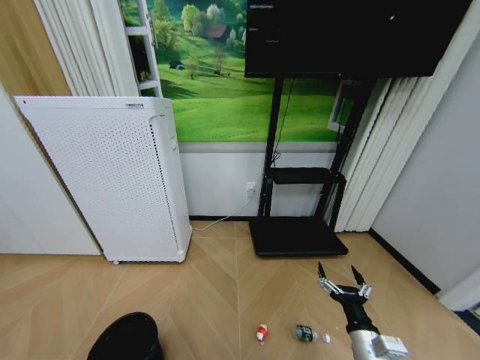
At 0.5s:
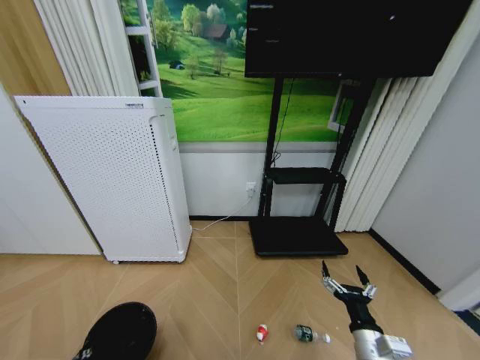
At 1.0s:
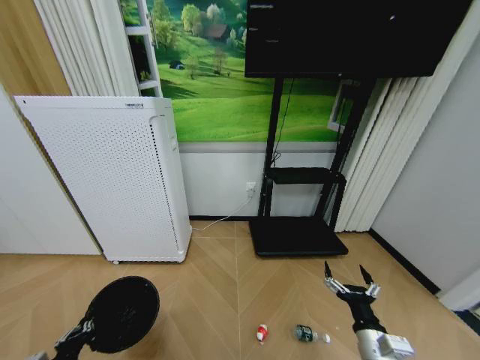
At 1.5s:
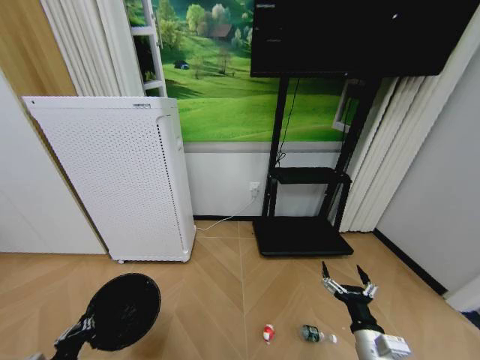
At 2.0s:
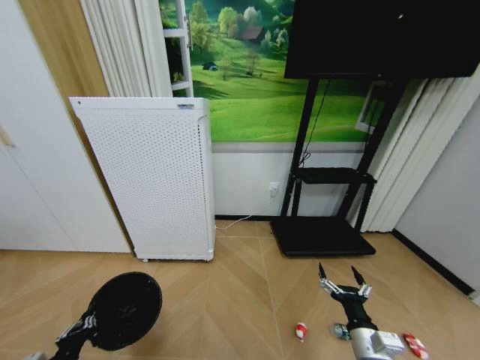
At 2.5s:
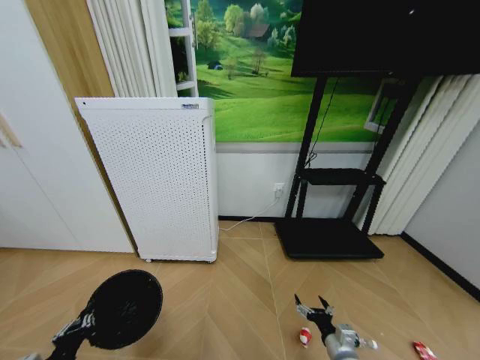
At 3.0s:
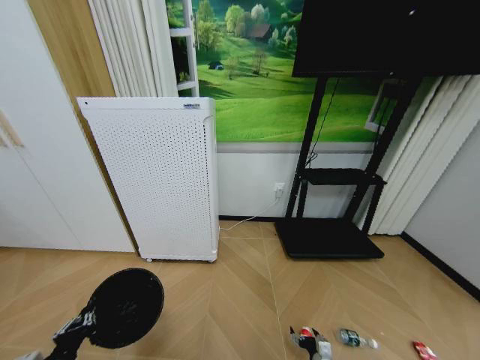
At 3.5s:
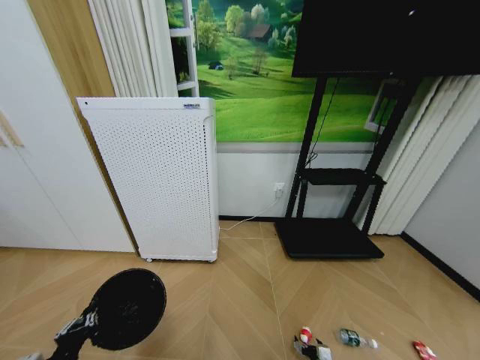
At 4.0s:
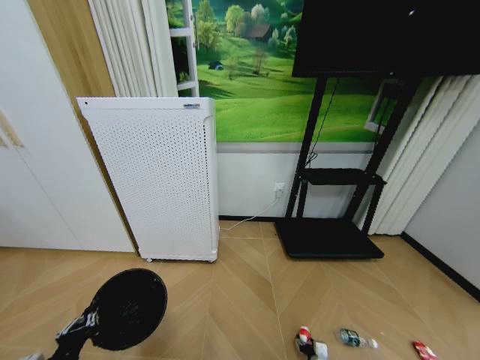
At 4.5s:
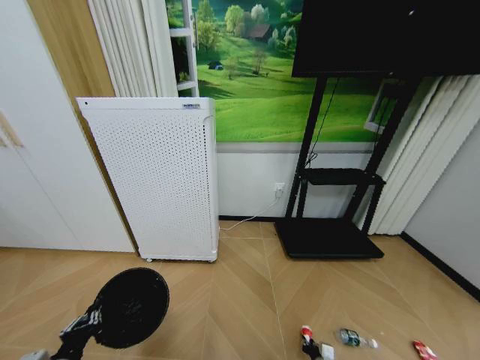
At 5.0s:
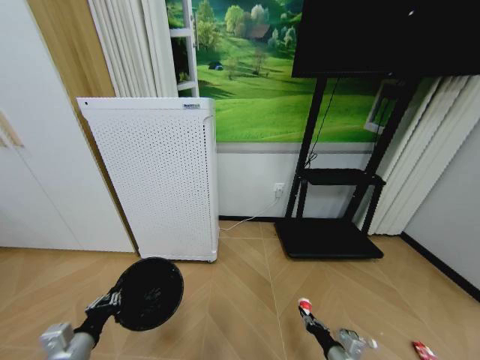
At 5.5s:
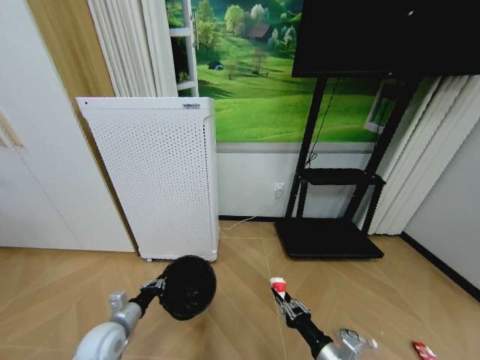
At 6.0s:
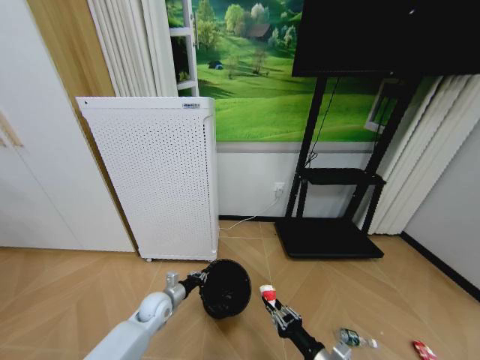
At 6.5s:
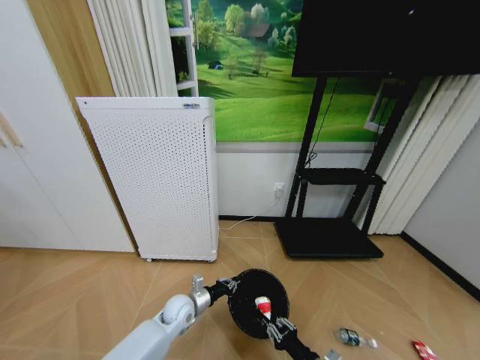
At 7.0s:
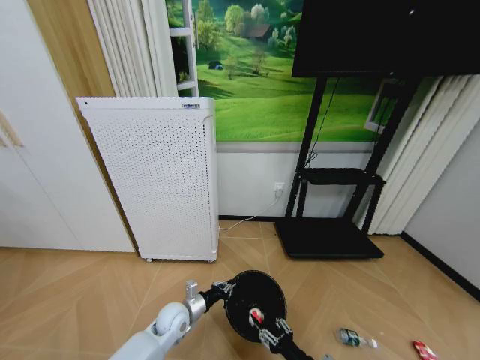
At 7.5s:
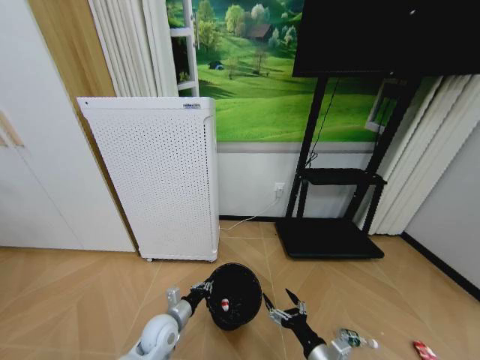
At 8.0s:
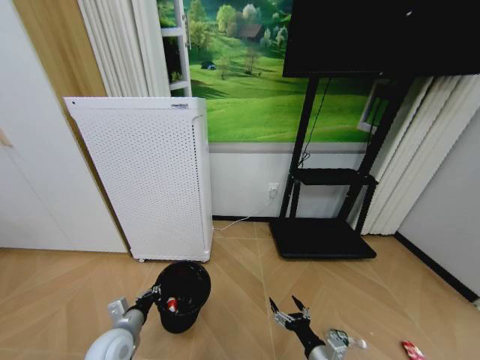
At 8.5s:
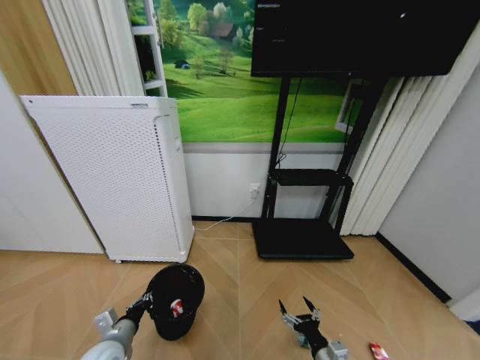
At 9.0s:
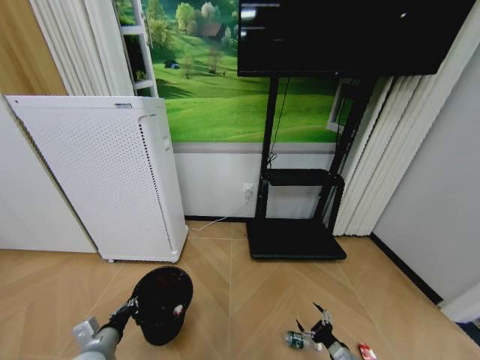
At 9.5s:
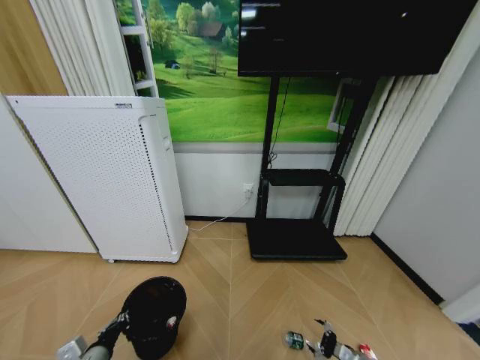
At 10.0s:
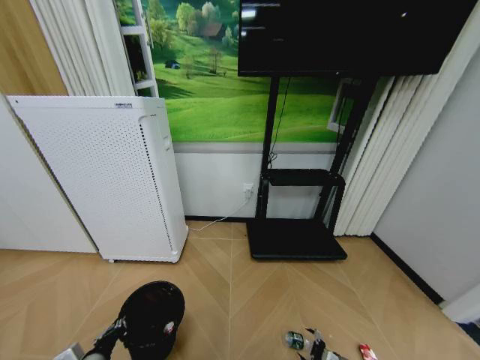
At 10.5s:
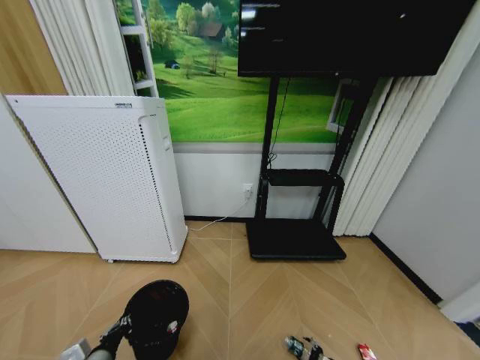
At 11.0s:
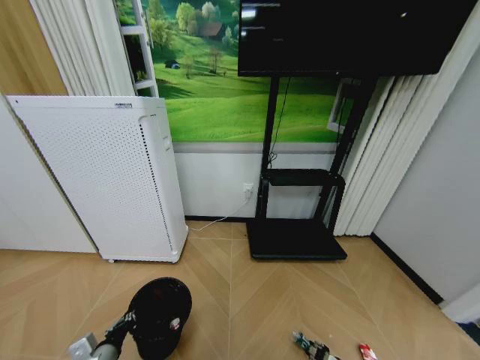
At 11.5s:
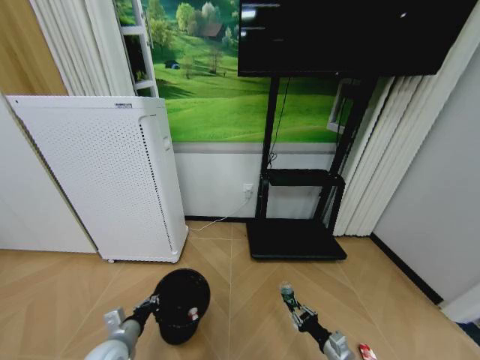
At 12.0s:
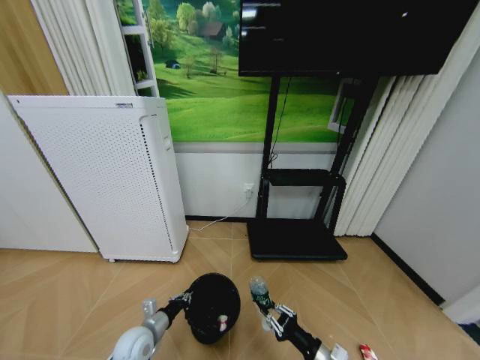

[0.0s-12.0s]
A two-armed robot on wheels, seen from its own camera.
Task of the whole recording: Pick up the trash bin and place the garbage on the floor into it.
0.0s to 2.0s: The left gripper heads upward, covering about 10 cm.
2.0s to 4.0s: The right gripper goes roughly 30 cm downward, and closes up.
4.0s to 6.0s: The right gripper goes about 25 cm upward, and closes up; the left gripper shifts about 30 cm forward, downward and to the right.
6.0s to 8.0s: The right gripper opens; the left gripper moves backward and upward, about 10 cm, and travels to the right and back again, about 10 cm each way.
8.0s to 10.0s: The left gripper is displaced backward by about 10 cm, while the right gripper travels downward and to the right by roughly 25 cm.
10.0s to 12.0s: The left gripper moves forward, to the right and downward, roughly 15 cm; the right gripper goes some 25 cm upward and to the left, and closes up.

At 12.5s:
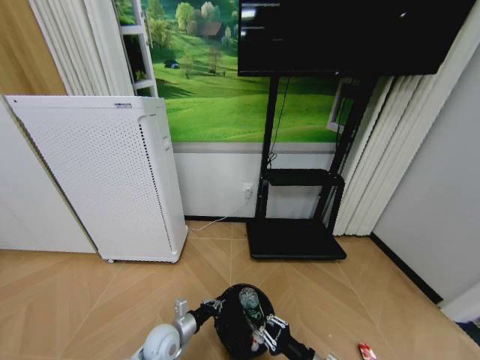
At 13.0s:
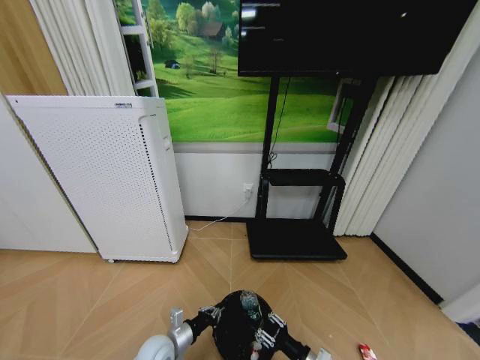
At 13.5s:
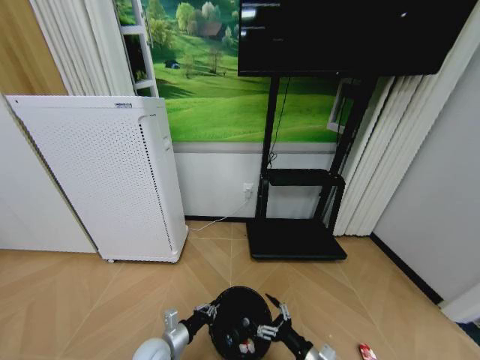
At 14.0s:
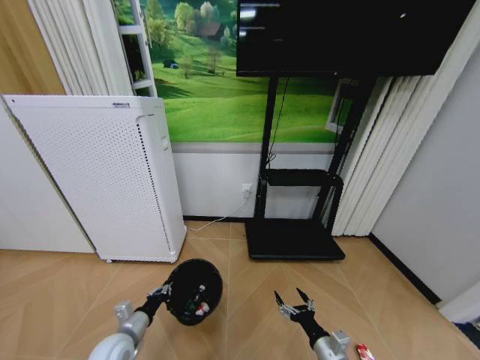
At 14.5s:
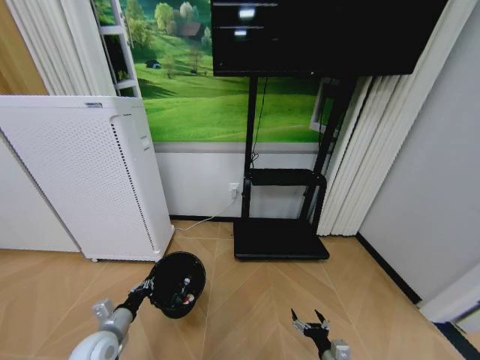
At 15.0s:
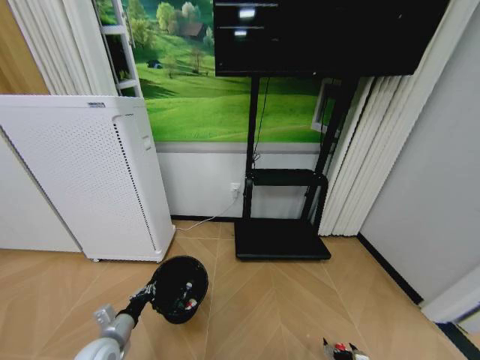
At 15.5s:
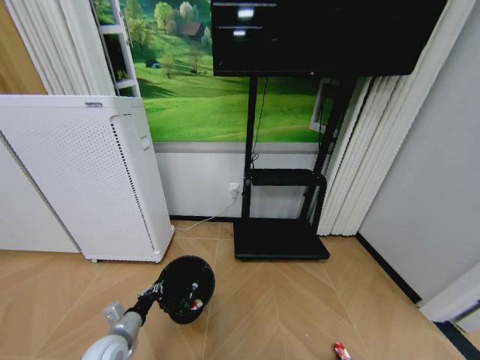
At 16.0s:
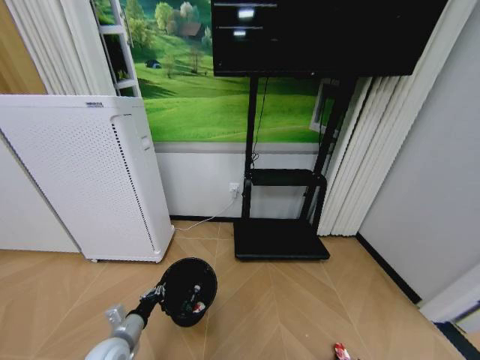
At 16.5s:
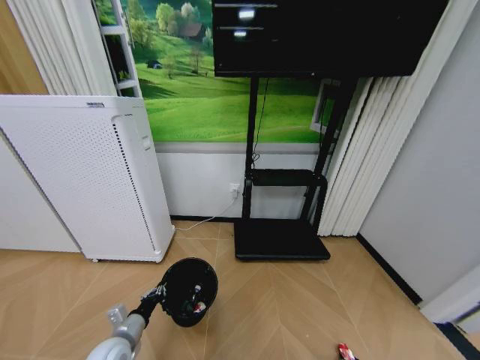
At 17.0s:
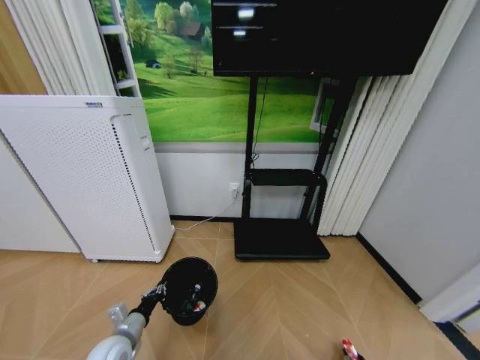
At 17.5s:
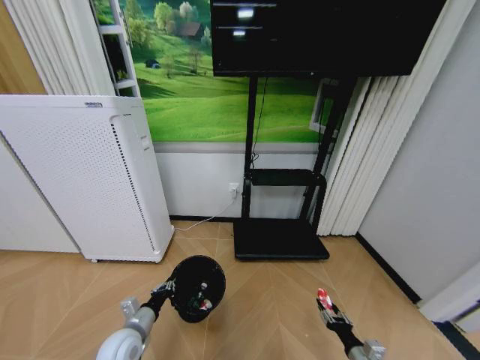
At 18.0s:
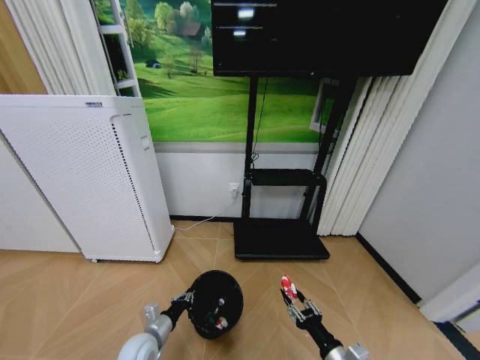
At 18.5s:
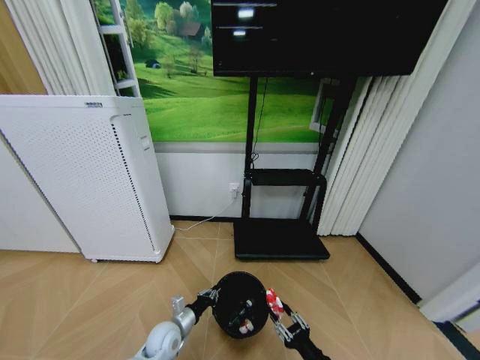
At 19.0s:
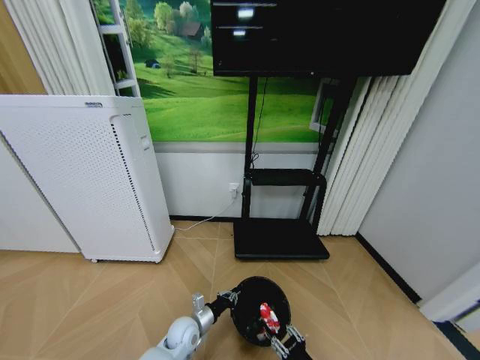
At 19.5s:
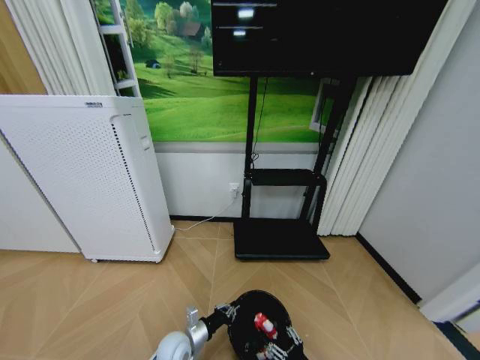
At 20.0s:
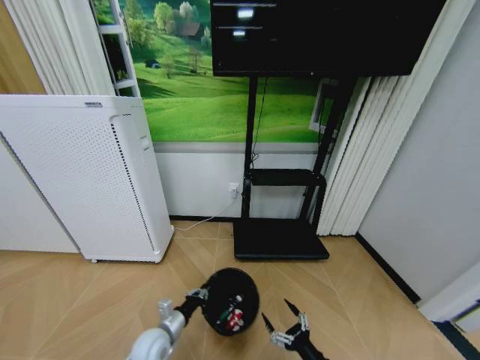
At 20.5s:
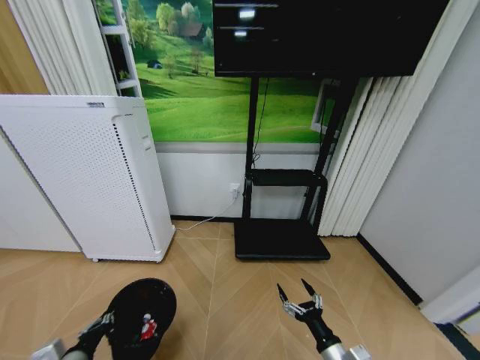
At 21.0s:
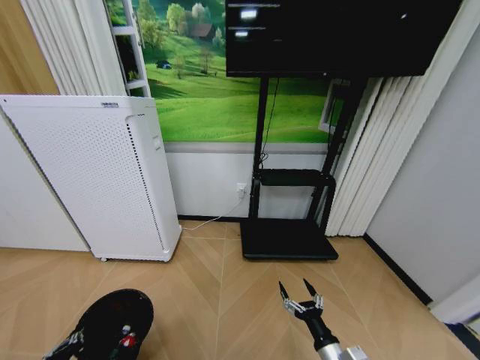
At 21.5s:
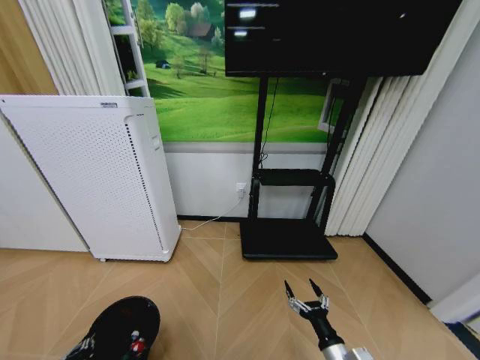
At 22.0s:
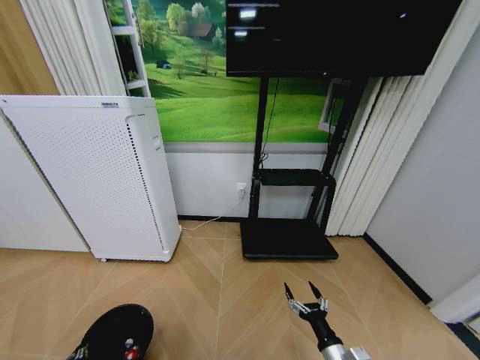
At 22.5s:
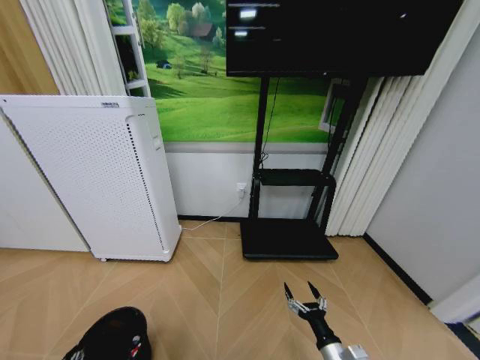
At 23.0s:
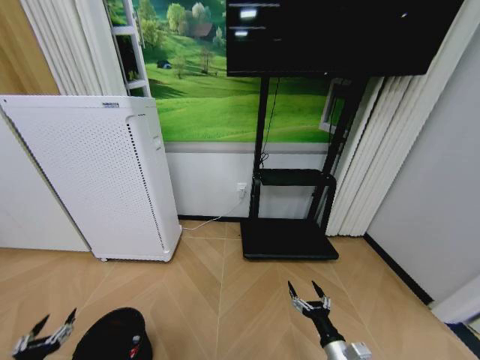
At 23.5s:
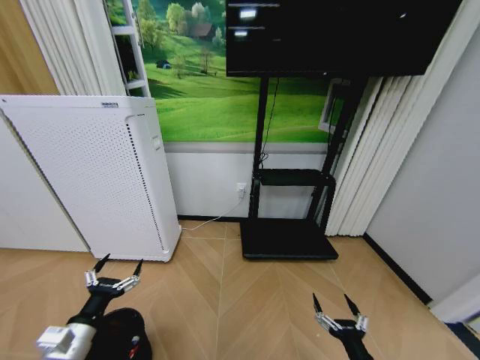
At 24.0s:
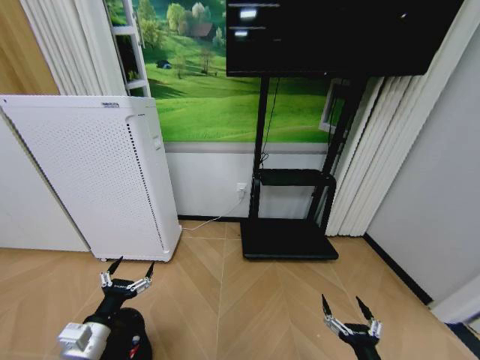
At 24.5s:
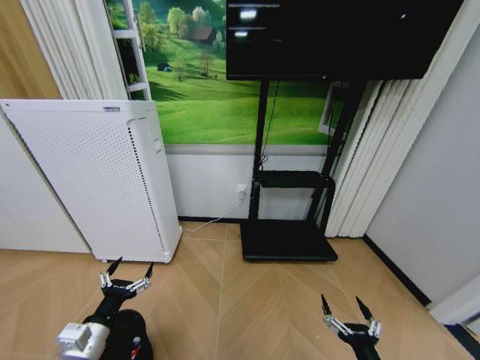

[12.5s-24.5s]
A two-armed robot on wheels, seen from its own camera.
Task of the whole recording: Pick up the trash bin and place the garbage on the floor into it.
12.5s to 14.5s: The right gripper travels downward by some 10 cm, and opens up; the left gripper moves to the left and upward, roughly 15 cm.
14.5s to 16.5s: The right gripper moves to the right and downward, some 20 cm, and closes.
16.5s to 18.5s: The right gripper shifts about 30 cm upward and to the left, while the left gripper shifts roughly 15 cm to the right, downward and forward.
18.5s to 20.5s: The right gripper opens, while the left gripper goes some 25 cm to the left, backward and upward.
20.5s to 22.5s: The left gripper travels downward, to the left and backward by about 15 cm.
22.5s to 24.5s: The left gripper heads upward, to the right and forward, covering approximately 20 cm, and opens. Meanwhile the right gripper is displaced backward and upward by about 10 cm.

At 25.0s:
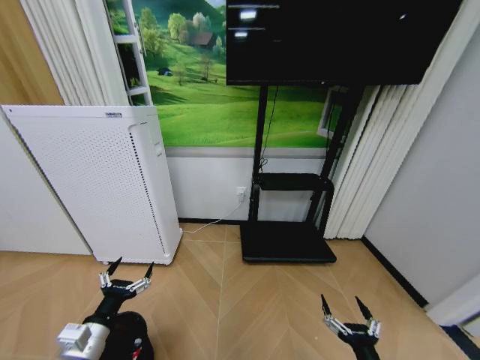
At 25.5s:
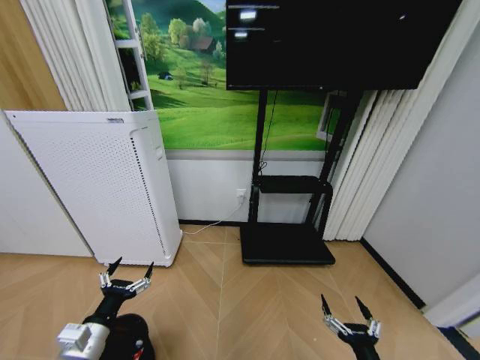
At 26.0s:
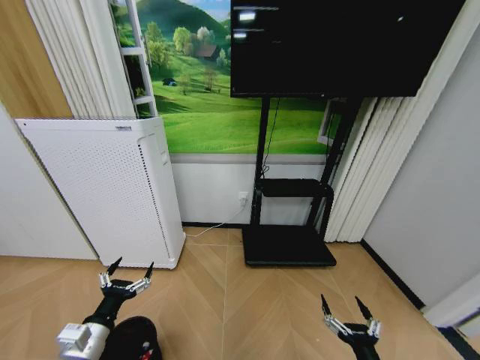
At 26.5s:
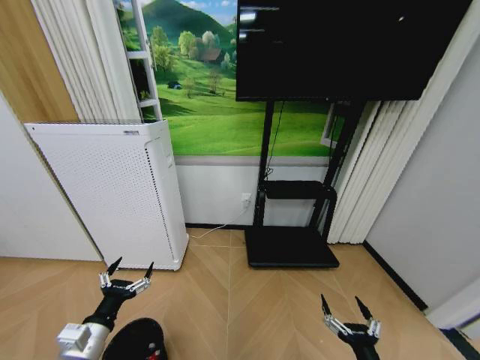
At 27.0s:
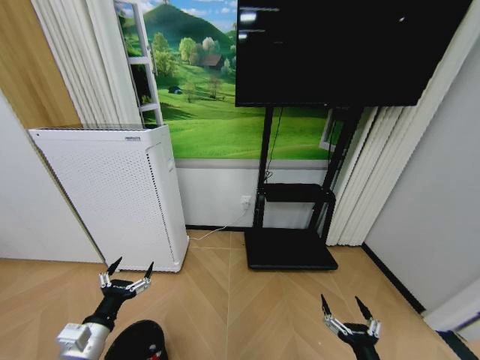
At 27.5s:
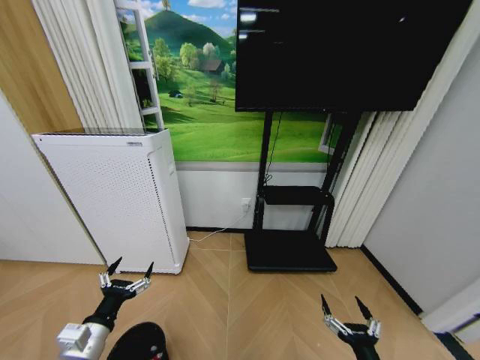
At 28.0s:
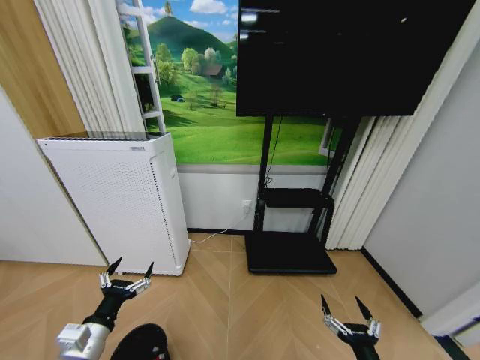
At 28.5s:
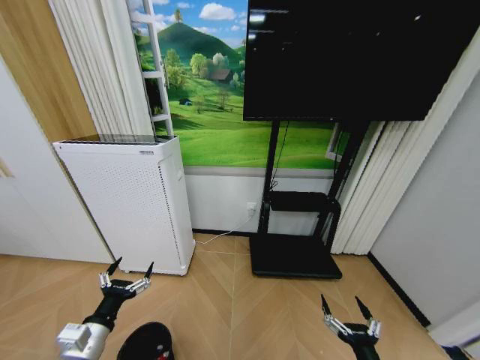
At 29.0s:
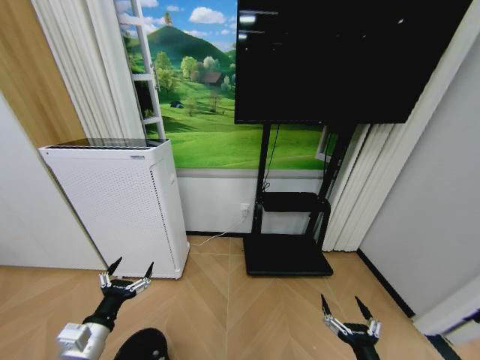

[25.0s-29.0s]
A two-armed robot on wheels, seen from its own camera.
Task of the whole recording: Pick up the trash bin and place the garbage on the floor into it.
27.0s to 29.0s: Neither gripper changes place.
